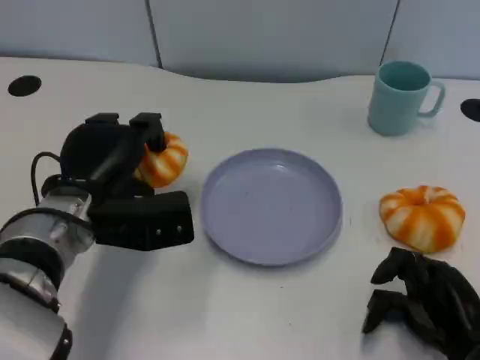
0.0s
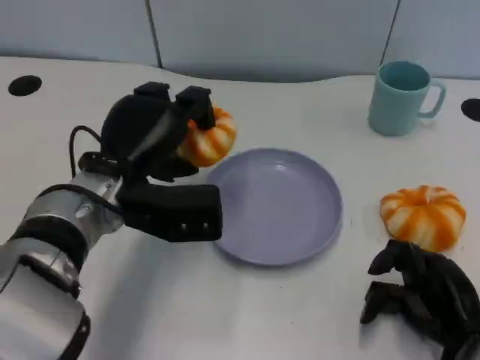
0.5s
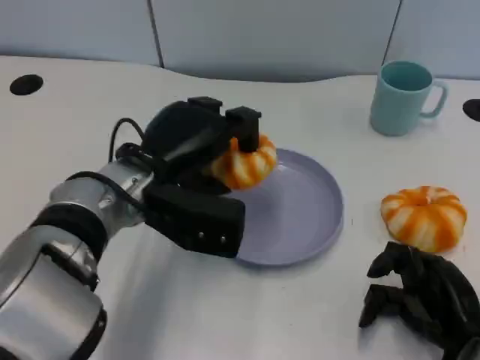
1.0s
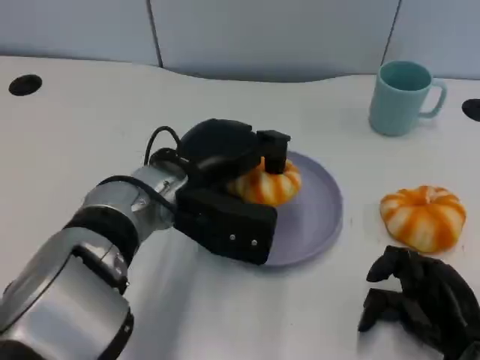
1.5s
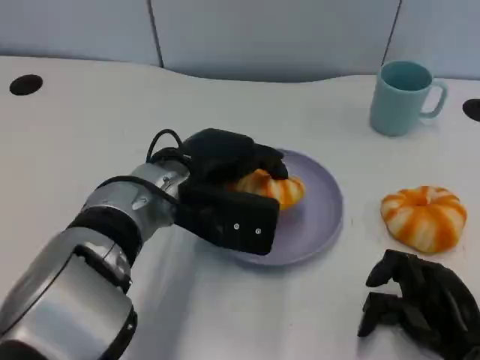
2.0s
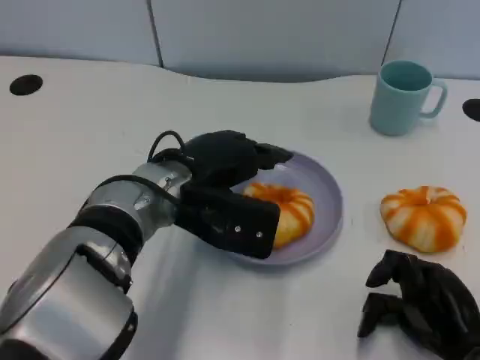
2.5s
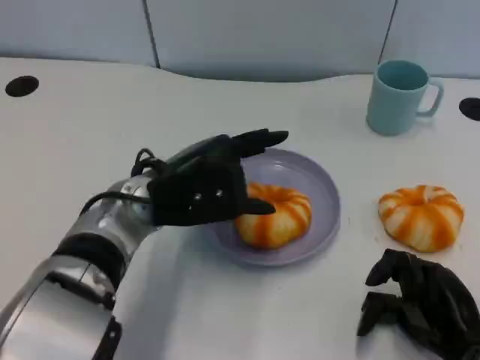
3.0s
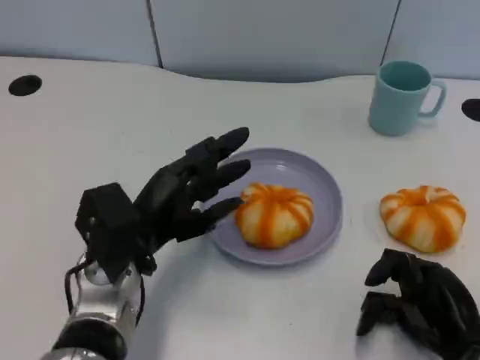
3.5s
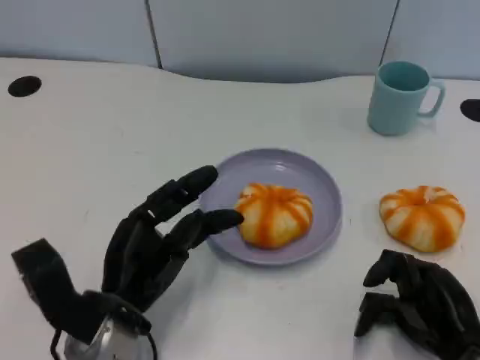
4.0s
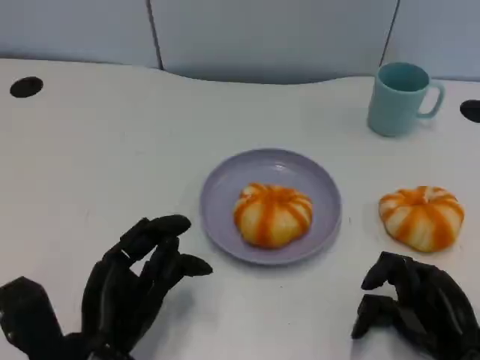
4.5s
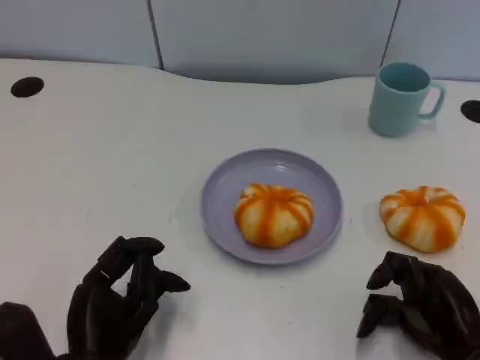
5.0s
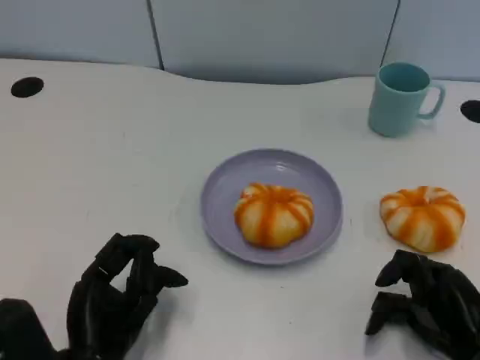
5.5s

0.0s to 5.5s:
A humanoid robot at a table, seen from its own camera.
Task of the whole recording: Grasp the bread from the table and place it into the plate.
0.0s to 2.0s: The left hand travels to the right by about 10 cm.
2.0s to 3.5s: The left hand travels to the left and downward by about 10 cm.
3.5s to 5.5s: The left hand moves backward, some 10 cm.

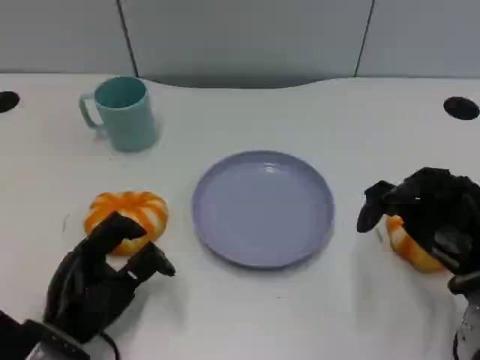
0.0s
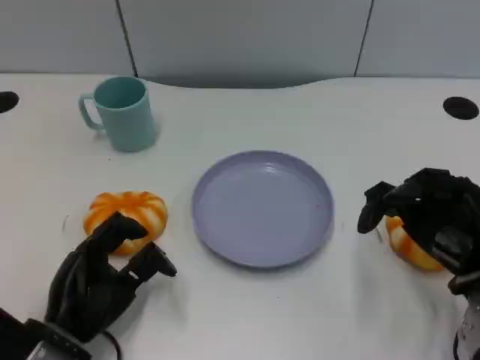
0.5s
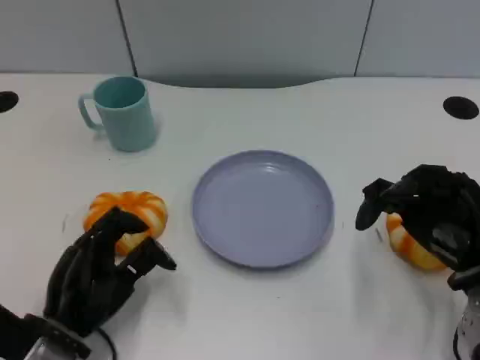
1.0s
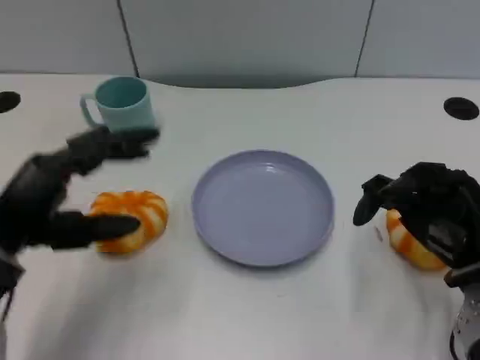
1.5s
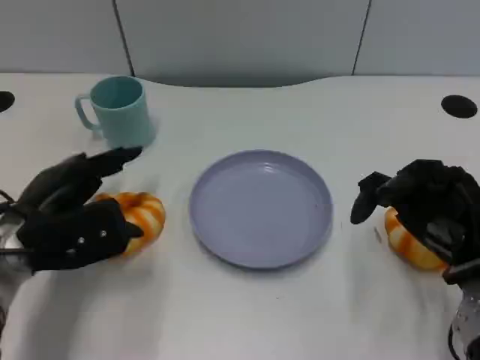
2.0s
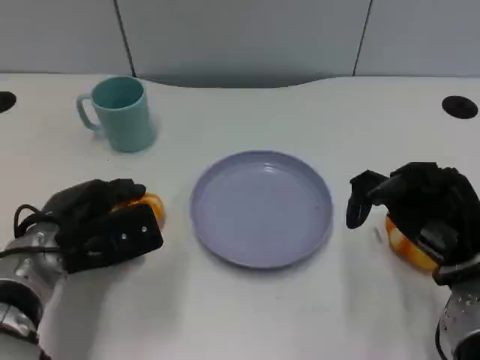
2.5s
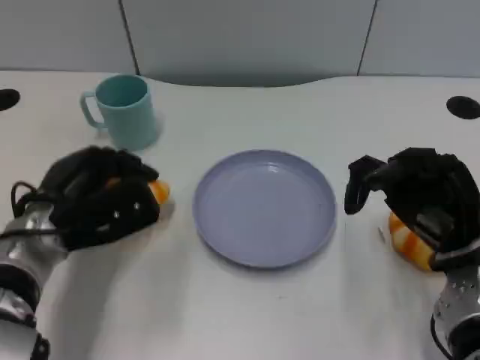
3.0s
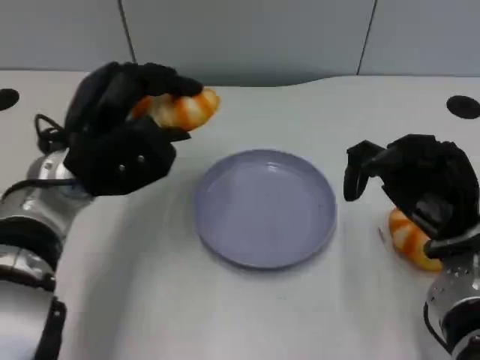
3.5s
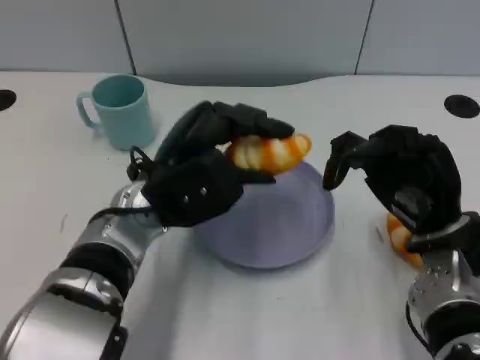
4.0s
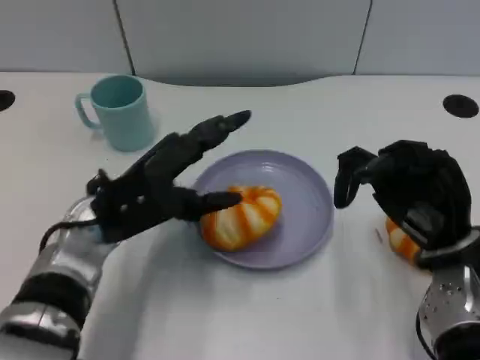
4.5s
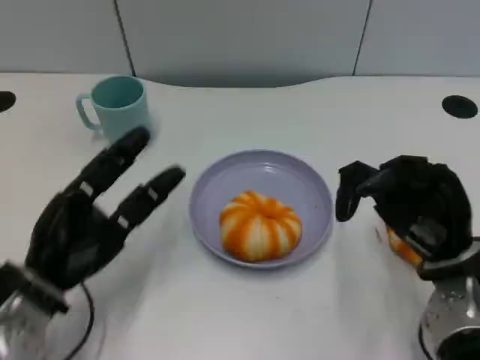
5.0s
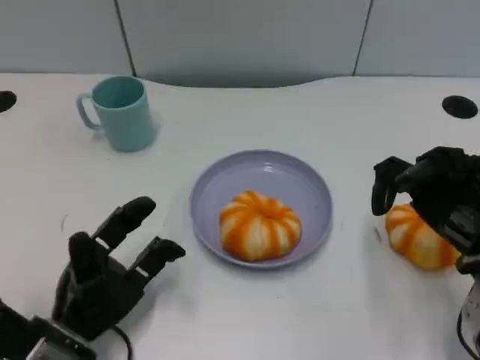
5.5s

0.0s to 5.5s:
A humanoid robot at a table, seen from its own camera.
Task of the whole recording: Grasp the bread from the table and place it into the plate.
0.0s to 2.0s: The left hand heads forward and upward, covering roughly 10 cm.
2.0s to 3.5s: The left hand is displaced to the right and upward by roughly 10 cm.
3.5s to 5.5s: The left hand goes roughly 20 cm downward and backward.

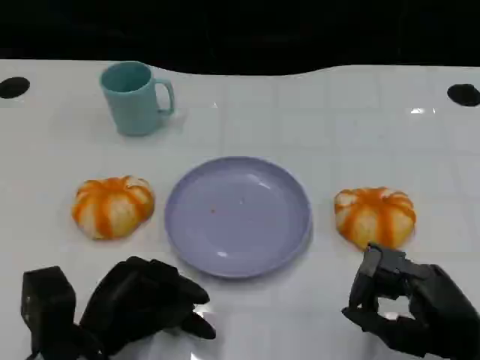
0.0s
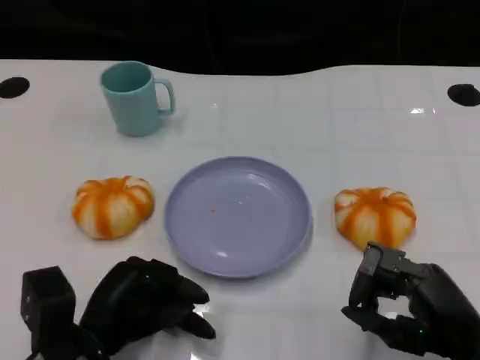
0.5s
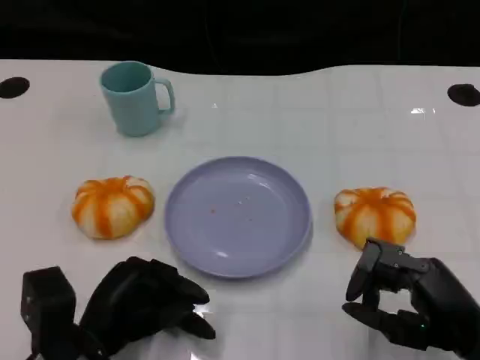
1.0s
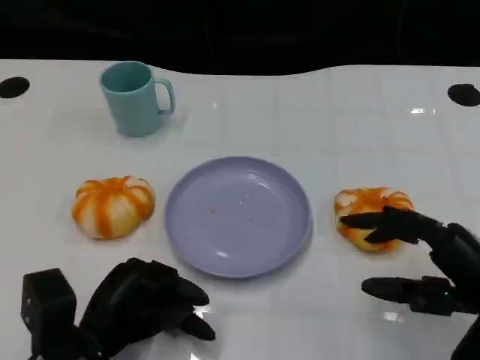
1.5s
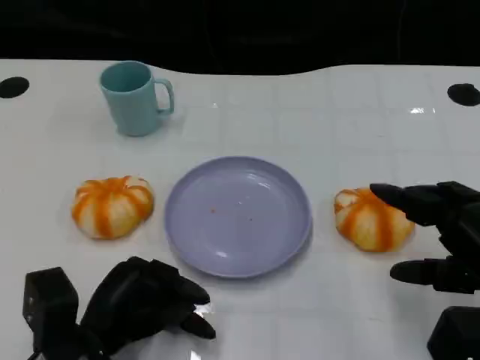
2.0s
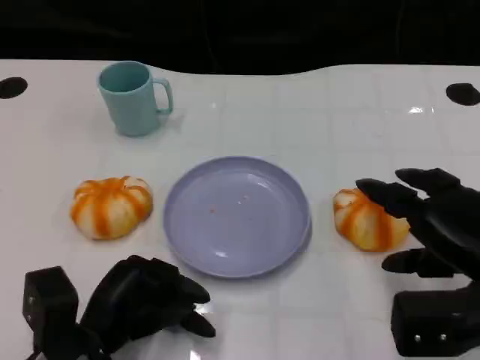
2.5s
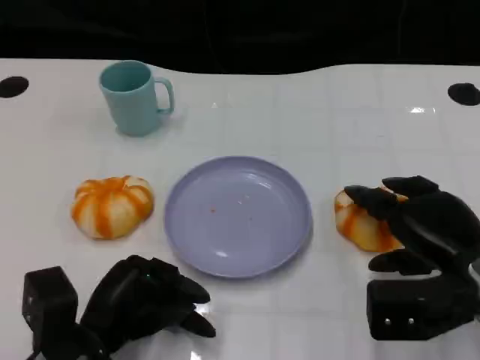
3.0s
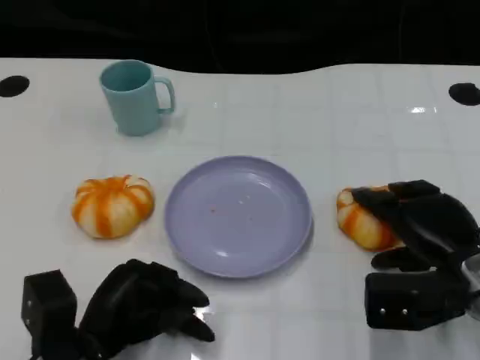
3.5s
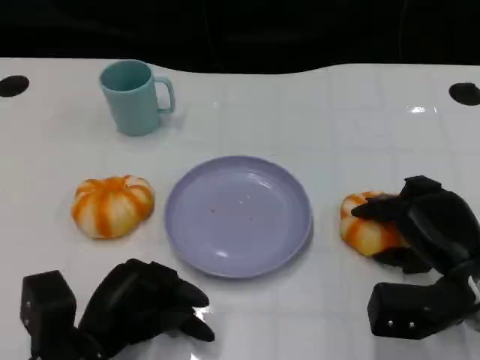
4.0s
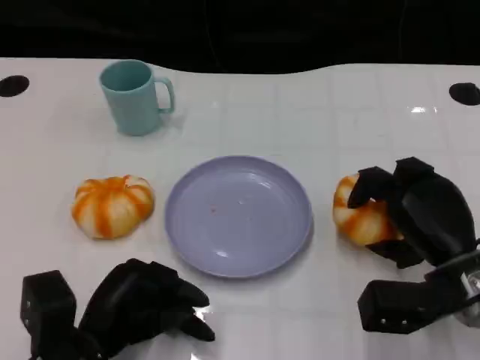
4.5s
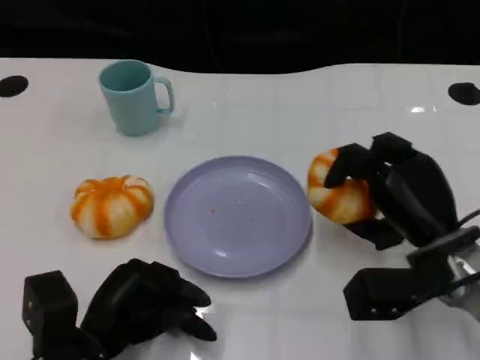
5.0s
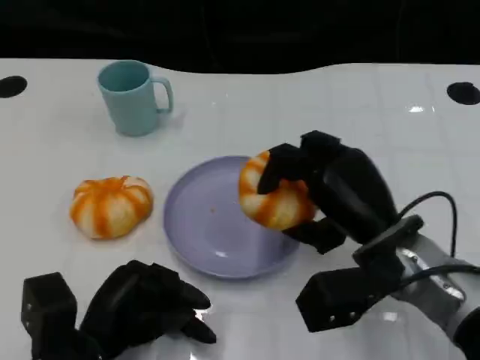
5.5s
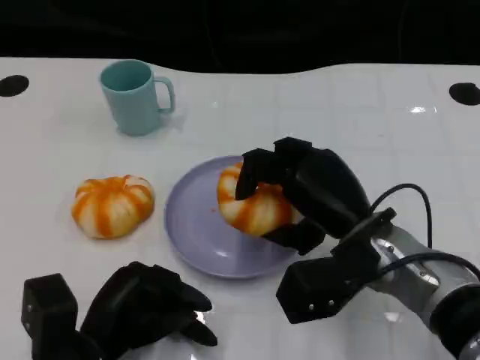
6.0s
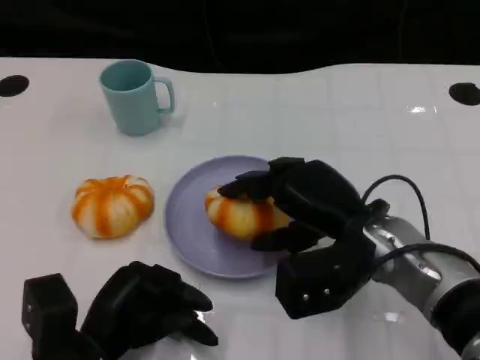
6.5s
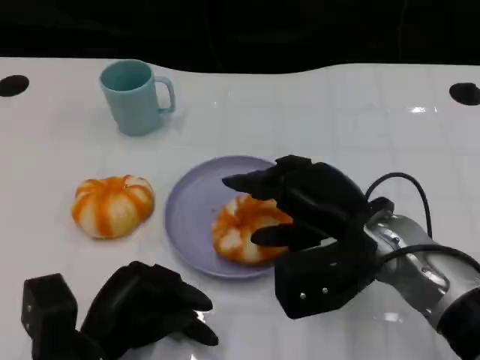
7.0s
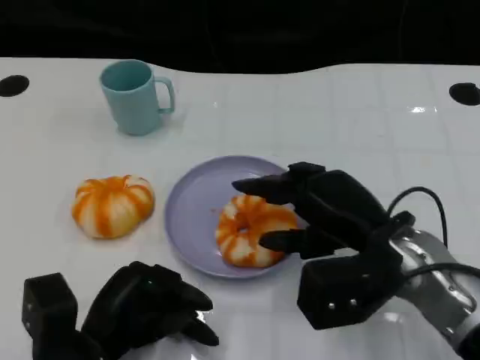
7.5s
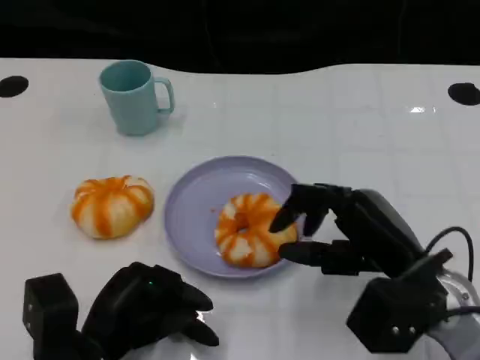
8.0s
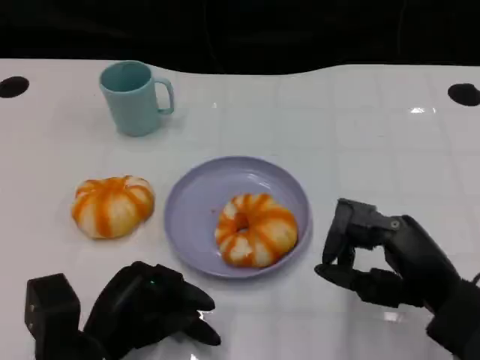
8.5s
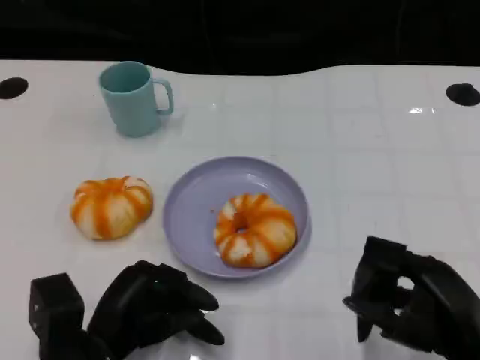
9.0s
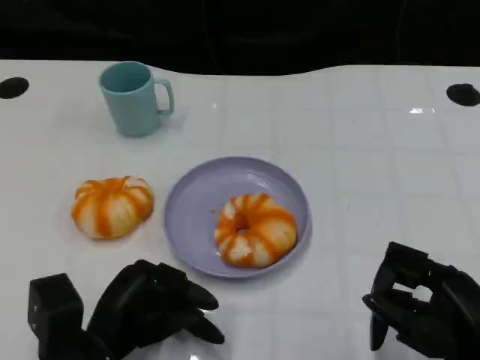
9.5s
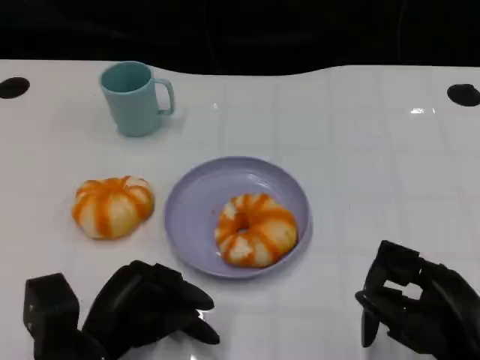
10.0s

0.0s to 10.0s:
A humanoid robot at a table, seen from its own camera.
Task of the whole recording: Grasp the bread from the table and place it into the plate.
0.0s to 2.0s: The right hand goes about 5 cm upward.
2.0s to 4.0s: The right hand goes roughly 10 cm downward and forward.
4.0s to 6.0s: The right hand moves to the left and upward, some 10 cm.
6.0s to 8.0s: The right hand is displaced to the right by some 5 cm.
8.0s to 10.0s: The right hand is displaced backward and to the right by some 10 cm.

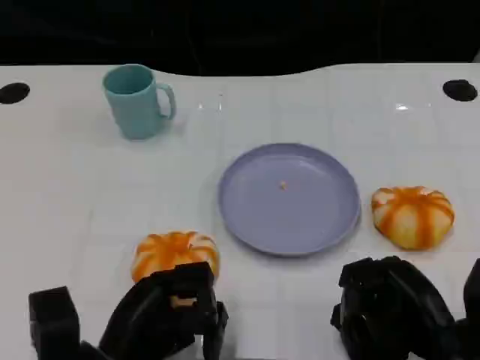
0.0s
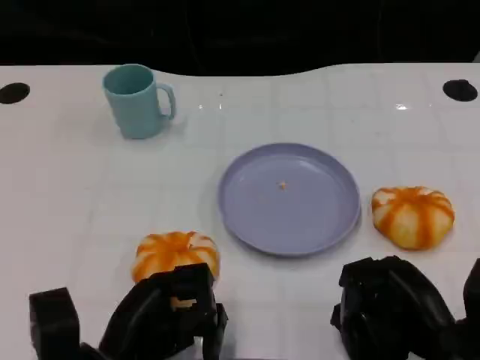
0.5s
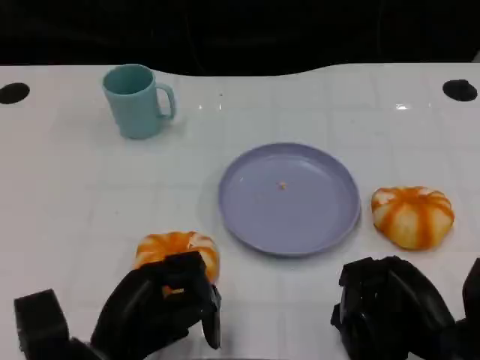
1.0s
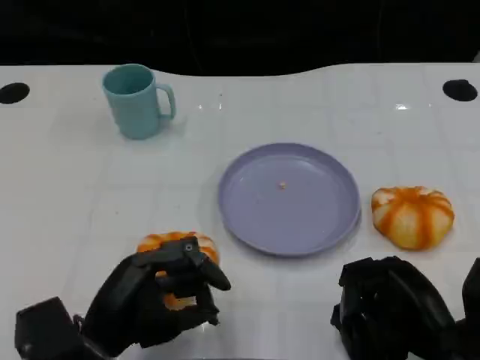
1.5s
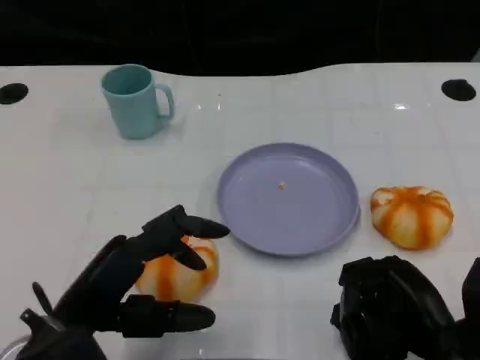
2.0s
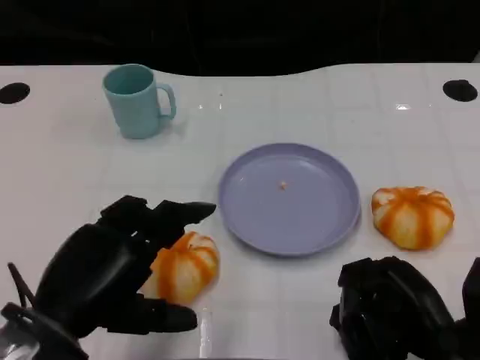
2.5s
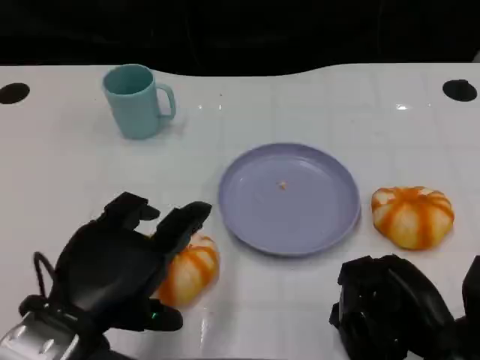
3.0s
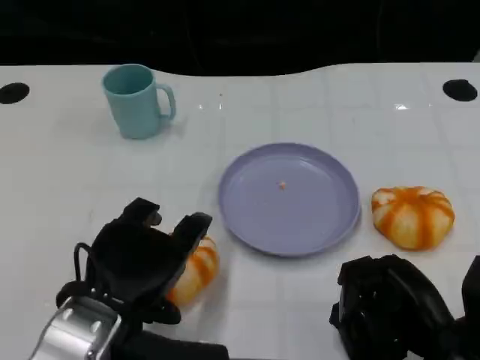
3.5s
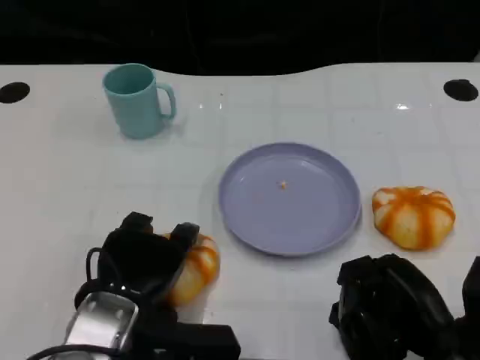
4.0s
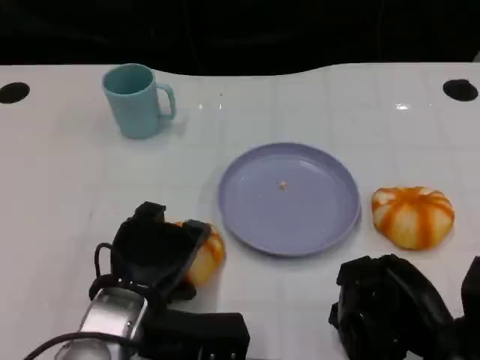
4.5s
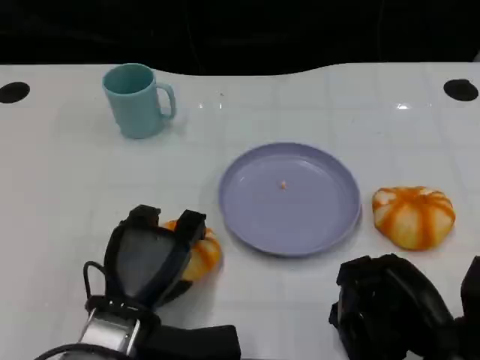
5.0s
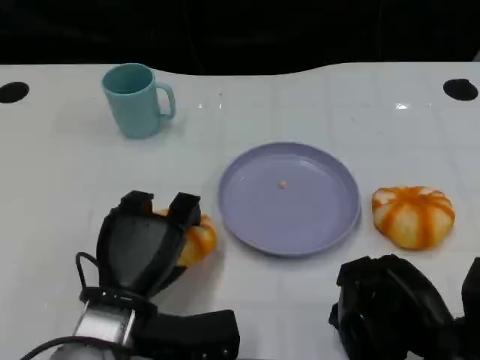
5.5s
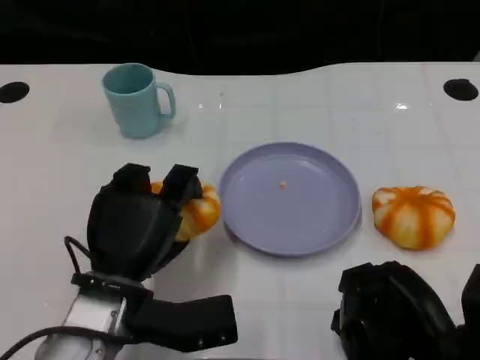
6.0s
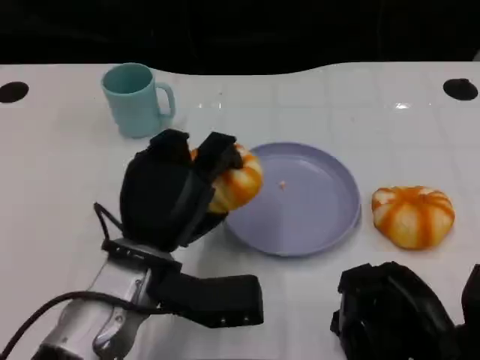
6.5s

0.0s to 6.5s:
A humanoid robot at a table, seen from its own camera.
Task of the whole recording: Grasp the bread from the table and place it into the plate.
0.0s to 2.0s: The left hand goes roughly 5 cm upward.
2.0s to 4.5s: The left hand travels to the right by some 5 cm.
